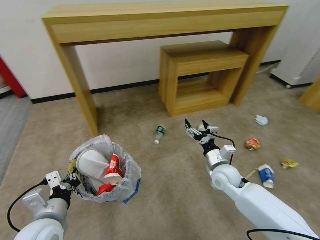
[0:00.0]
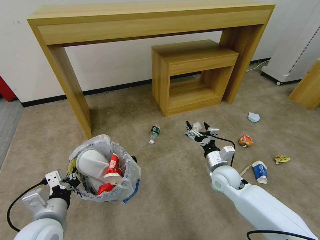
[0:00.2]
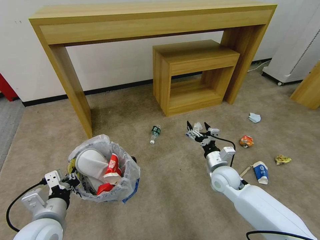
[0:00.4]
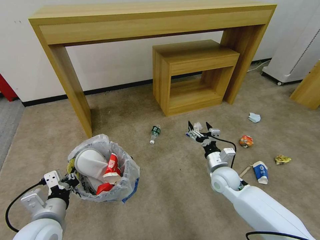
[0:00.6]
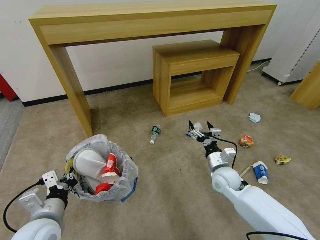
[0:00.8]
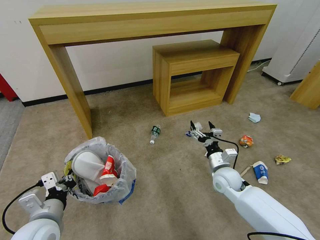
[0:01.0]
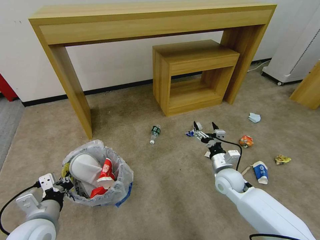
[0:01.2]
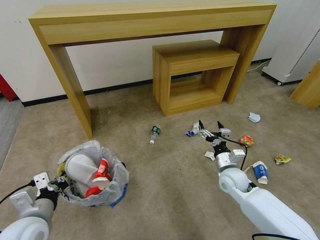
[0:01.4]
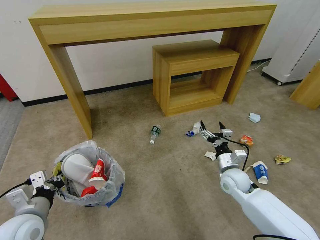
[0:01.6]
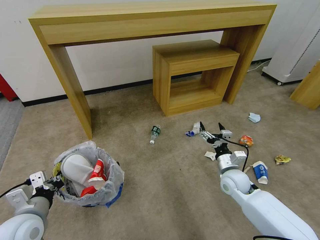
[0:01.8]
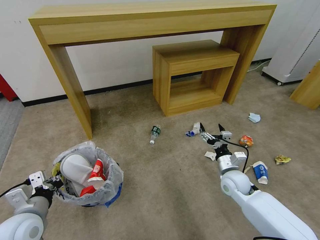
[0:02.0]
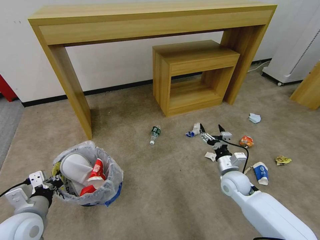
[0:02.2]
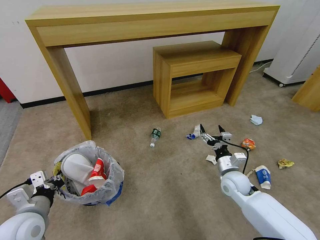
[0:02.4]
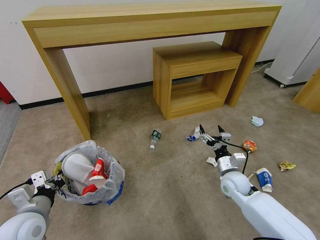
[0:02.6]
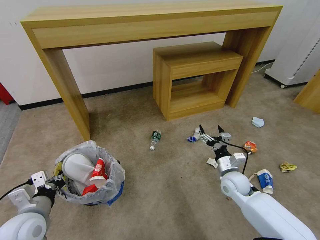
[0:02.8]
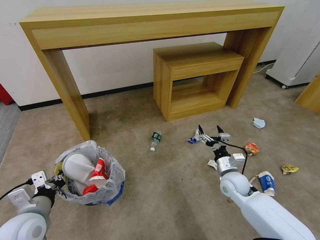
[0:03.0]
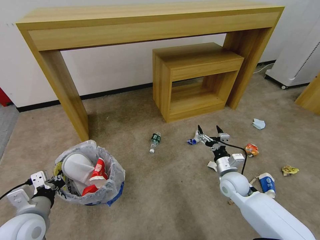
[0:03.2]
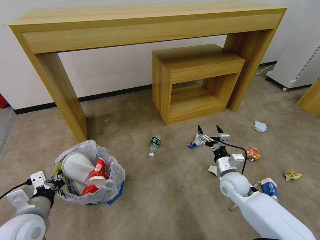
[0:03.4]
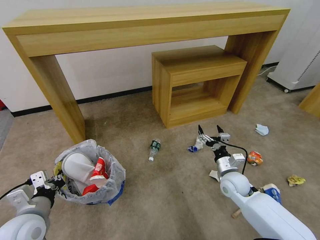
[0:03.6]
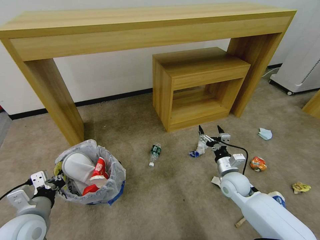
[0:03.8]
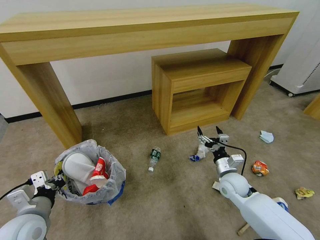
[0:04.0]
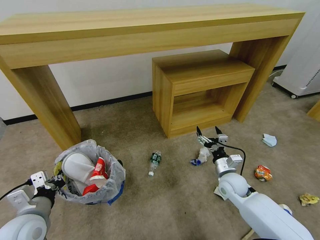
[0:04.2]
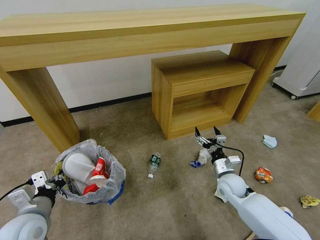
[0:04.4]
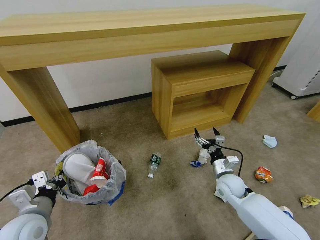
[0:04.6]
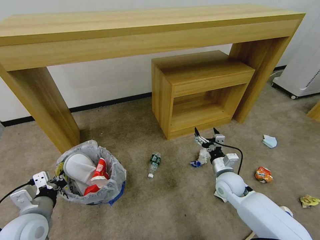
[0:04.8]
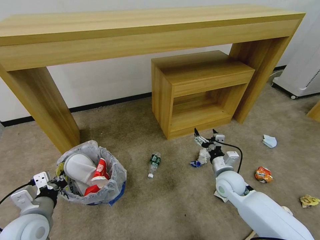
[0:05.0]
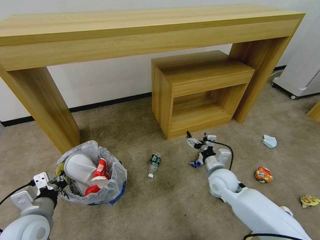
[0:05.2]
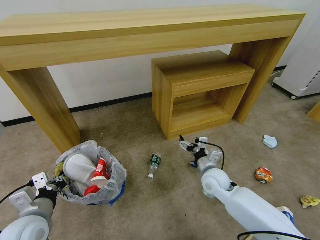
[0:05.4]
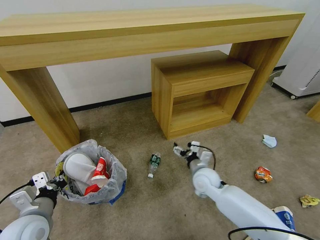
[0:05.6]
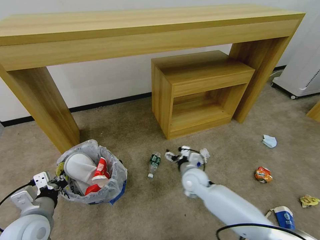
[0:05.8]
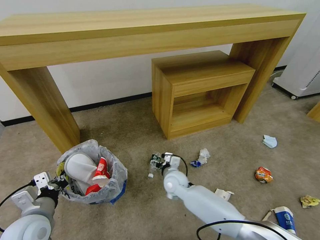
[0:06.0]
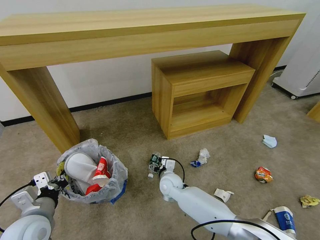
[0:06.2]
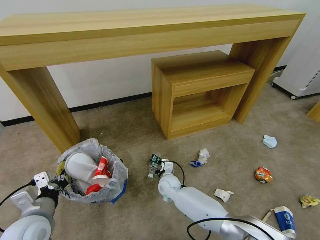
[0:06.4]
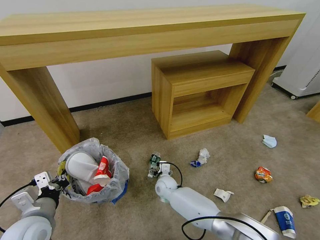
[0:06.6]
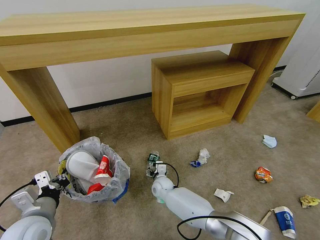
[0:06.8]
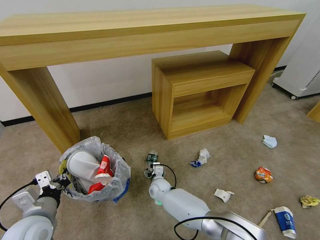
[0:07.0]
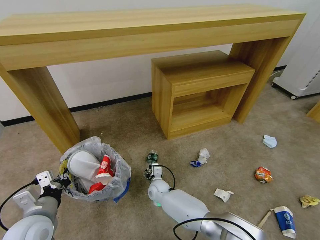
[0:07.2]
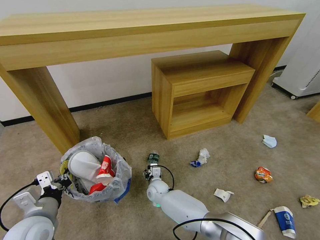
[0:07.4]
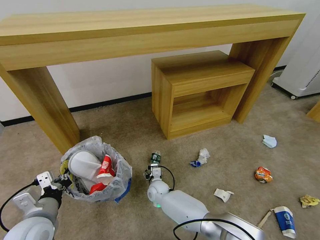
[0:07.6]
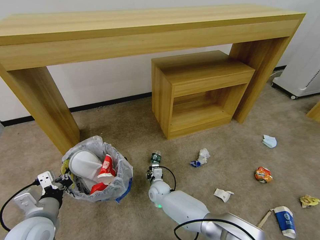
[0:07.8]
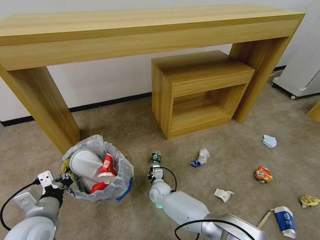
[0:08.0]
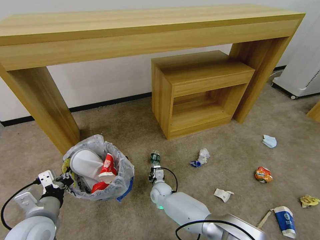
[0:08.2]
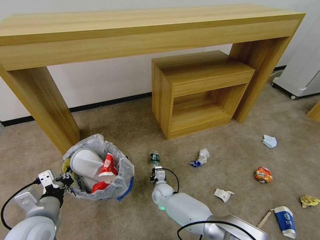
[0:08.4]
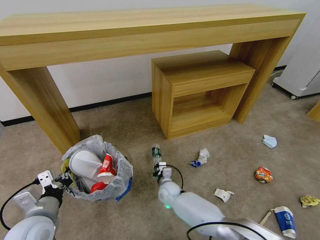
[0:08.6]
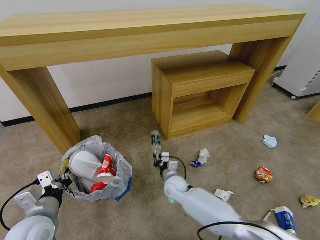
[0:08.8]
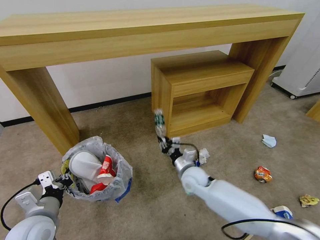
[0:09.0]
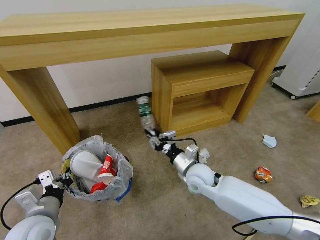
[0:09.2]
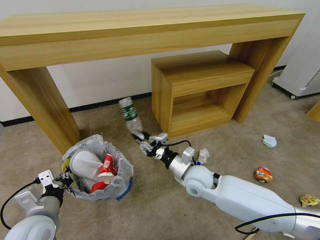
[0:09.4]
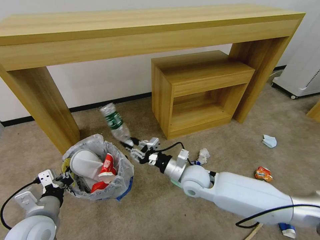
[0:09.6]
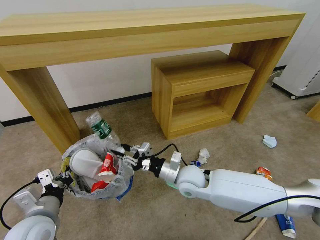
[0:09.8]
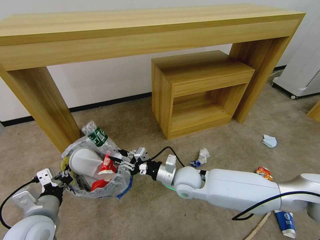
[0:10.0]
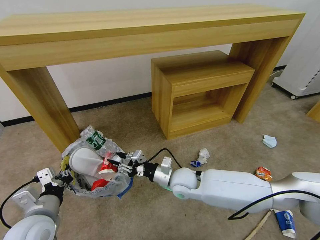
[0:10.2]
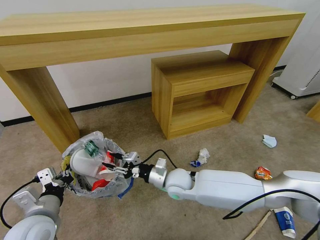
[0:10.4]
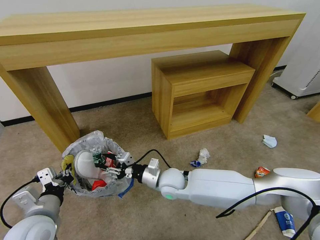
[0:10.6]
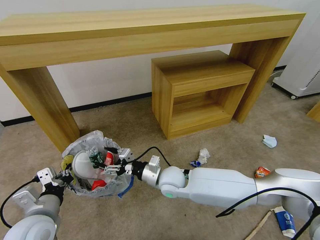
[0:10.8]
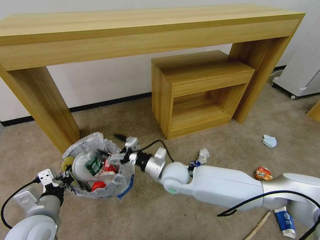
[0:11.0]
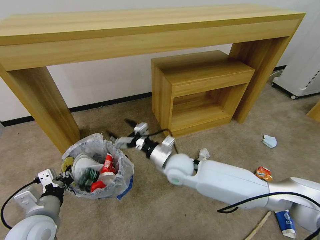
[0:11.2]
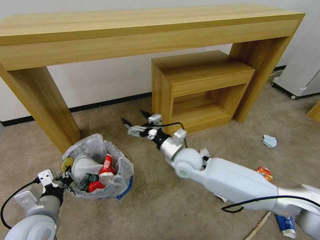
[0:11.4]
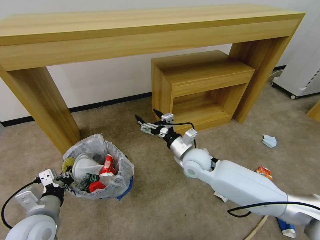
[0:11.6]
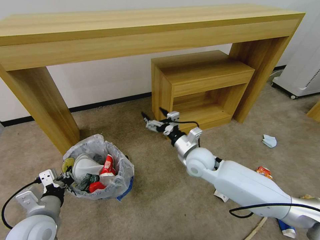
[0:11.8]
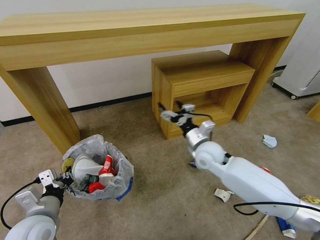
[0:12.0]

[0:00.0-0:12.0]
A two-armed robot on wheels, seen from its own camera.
Task of the whole recording: Pick up the trash bin and place the garbage on the floor into it.
0:00.0 to 0:01.6: The left gripper is displaced to the left by about 5 cm.
0:01.6 to 0:03.0: The grippers move only a little.
0:04.4 to 0:06.0: The right gripper goes about 20 cm to the left.
0:06.0 to 0:07.6: The right gripper heads downward and to the left, covering approximately 15 cm.
0:07.6 to 0:09.0: The right gripper is displaced to the right and upward by approximately 20 cm, and closes.
0:09.0 to 0:10.4: The right gripper goes some 10 cm to the left and upward.
0:10.4 to 0:12.0: The right gripper shifts roughly 15 cm to the right, upward and forward, and opens up.

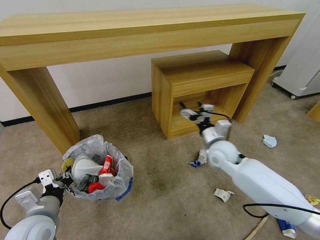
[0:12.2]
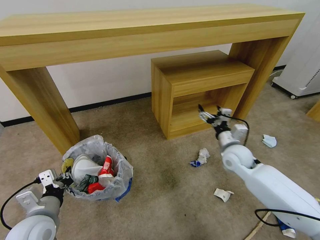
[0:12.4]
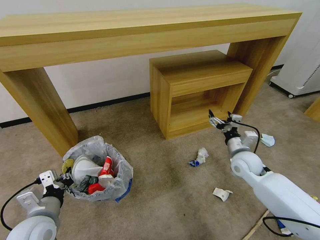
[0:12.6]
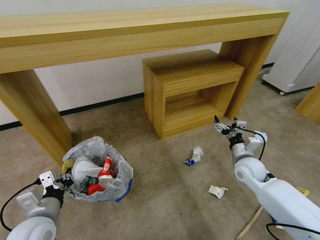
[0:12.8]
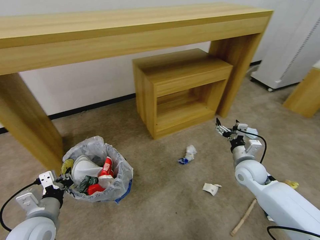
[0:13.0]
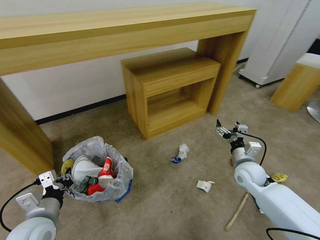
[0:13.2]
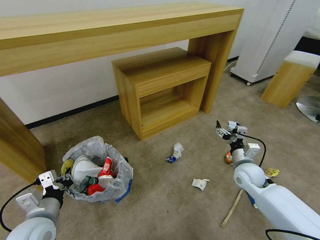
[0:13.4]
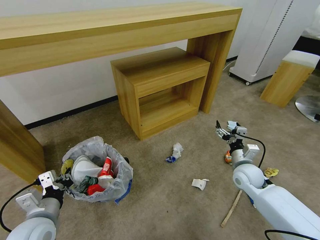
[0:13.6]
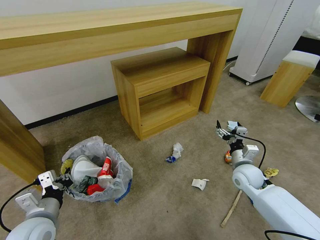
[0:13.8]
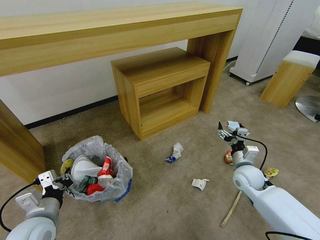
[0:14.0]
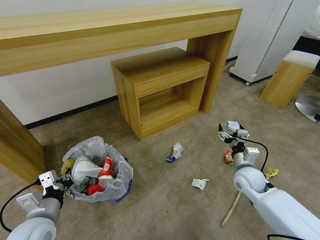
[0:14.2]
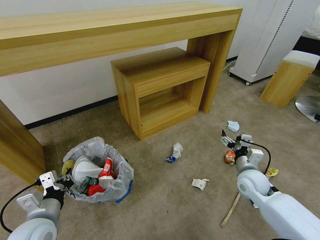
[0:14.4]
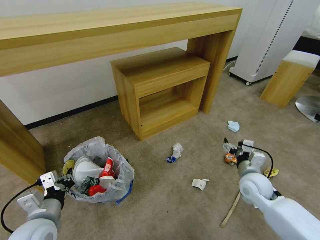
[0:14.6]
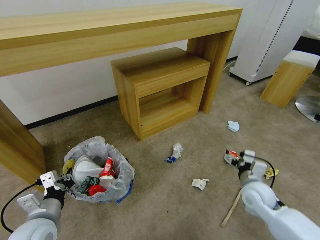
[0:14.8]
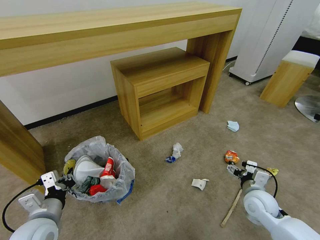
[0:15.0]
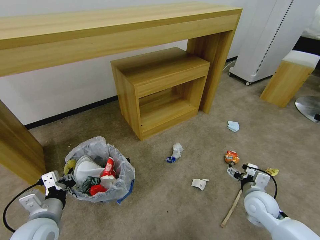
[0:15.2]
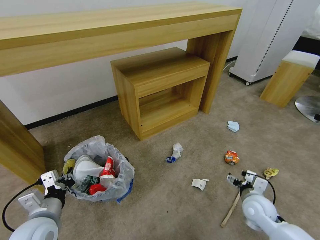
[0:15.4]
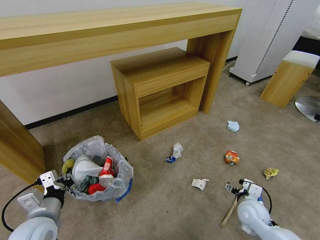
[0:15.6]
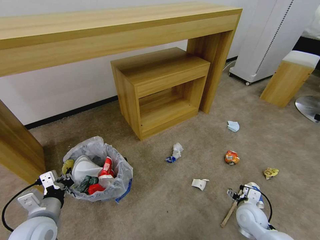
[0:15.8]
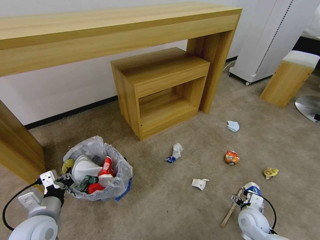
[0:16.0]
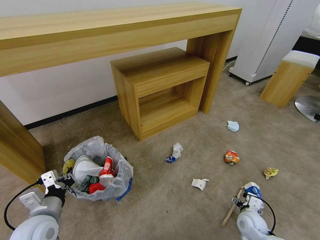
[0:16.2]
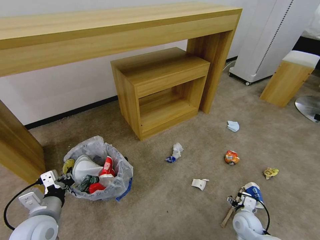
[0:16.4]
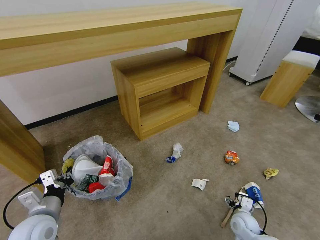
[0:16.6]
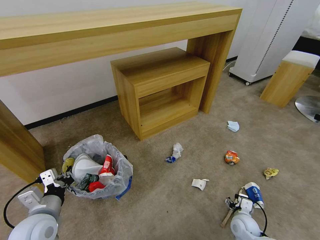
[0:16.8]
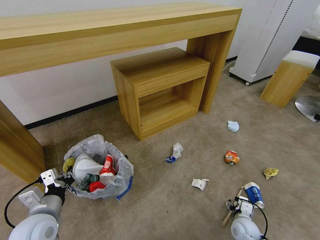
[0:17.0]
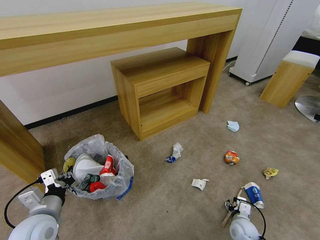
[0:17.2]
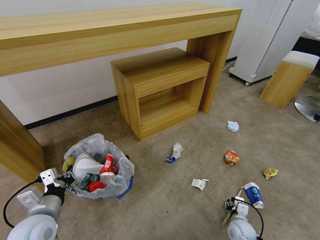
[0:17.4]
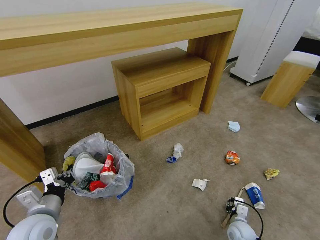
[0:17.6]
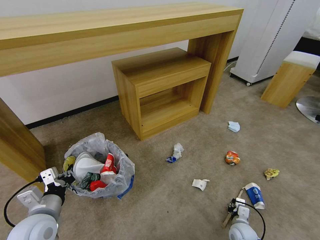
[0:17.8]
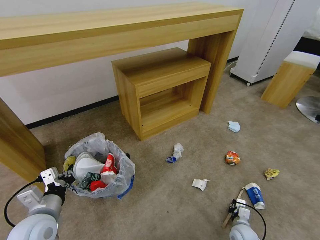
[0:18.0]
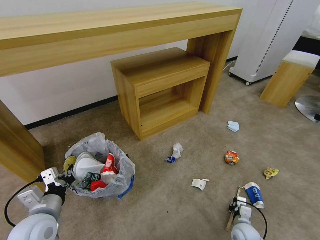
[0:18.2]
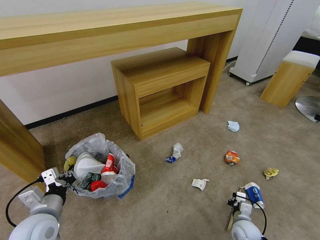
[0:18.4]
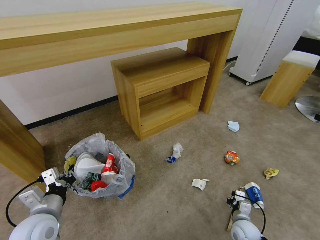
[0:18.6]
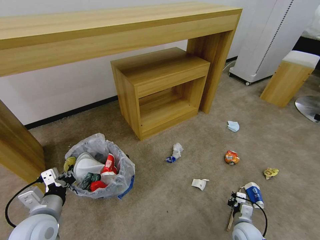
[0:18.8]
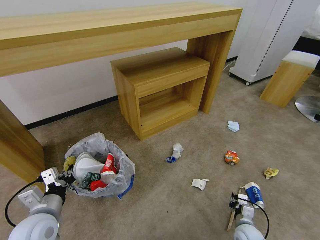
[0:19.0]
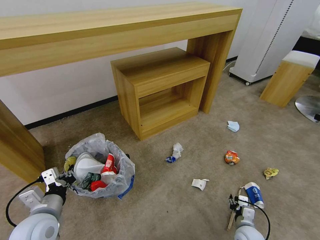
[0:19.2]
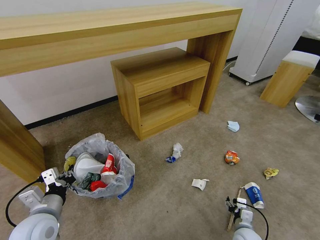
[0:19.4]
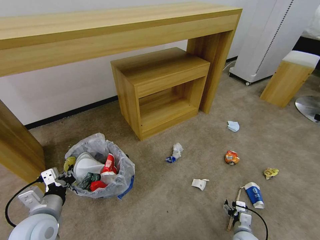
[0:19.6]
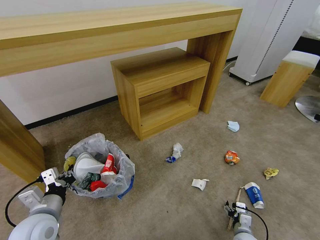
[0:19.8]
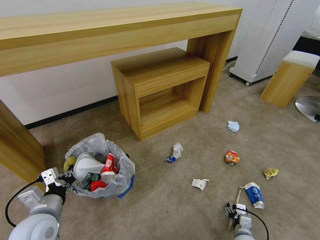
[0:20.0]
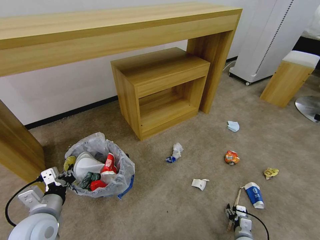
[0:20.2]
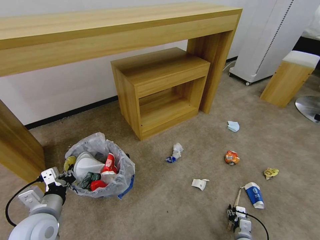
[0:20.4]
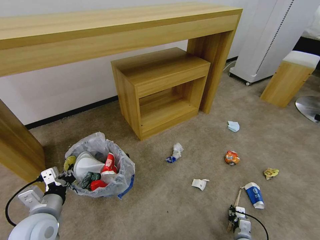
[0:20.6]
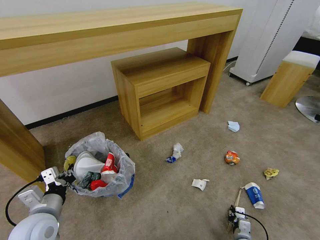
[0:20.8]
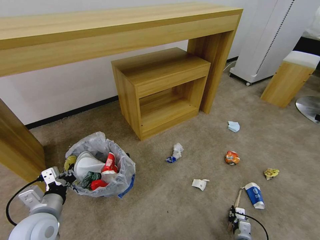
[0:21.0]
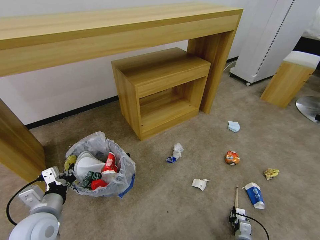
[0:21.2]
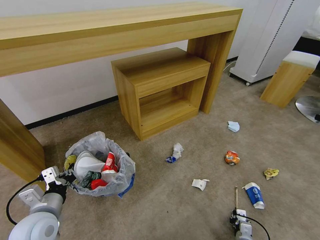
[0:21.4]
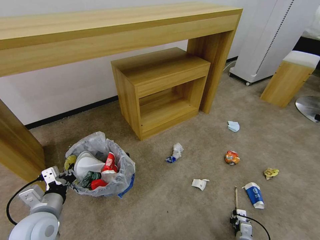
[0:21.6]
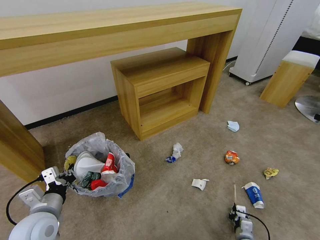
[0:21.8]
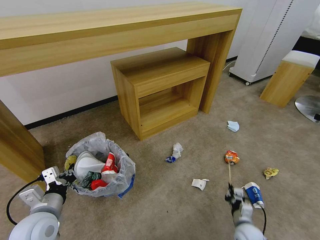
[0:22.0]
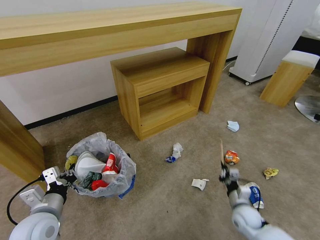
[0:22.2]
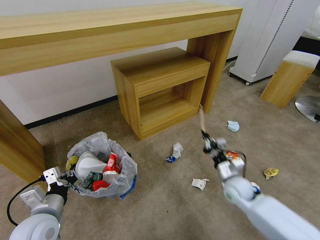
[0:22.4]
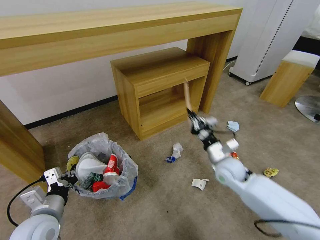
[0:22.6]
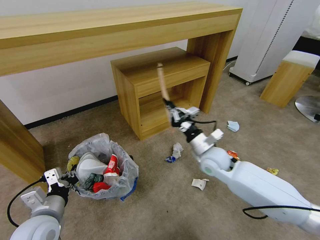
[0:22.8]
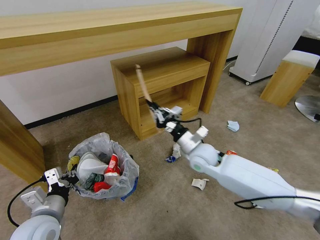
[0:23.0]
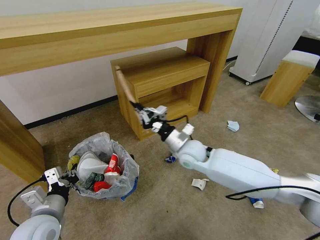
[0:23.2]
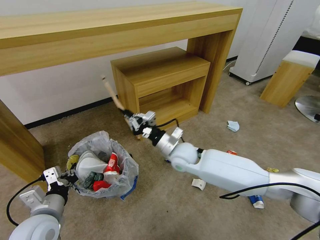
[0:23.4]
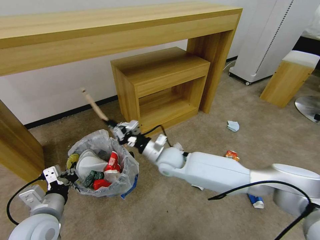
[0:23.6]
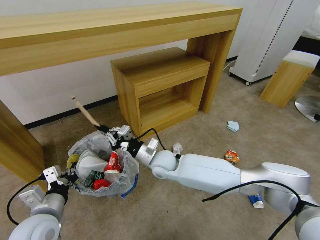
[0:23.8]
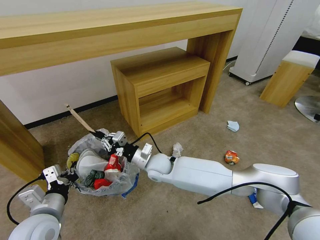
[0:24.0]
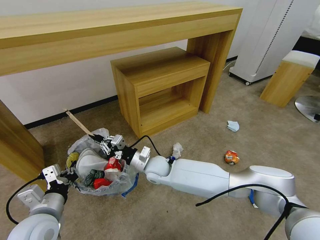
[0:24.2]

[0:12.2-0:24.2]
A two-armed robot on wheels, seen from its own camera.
Task of the whole recording: Pick up the trash bin and place the garbage on the floor into it.
0:12.2 to 0:13.8: The right gripper goes some 10 cm to the right and downward.
0:13.8 to 0:15.2: The right gripper shifts approximately 10 cm backward.
0:15.2 to 0:16.6: The right gripper shifts about 15 cm downward.
0:16.6 to 0:18.2: The right gripper closes up.
0:18.2 to 0:19.8: The right gripper opens its fingers.
0:19.8 to 0:21.2: The right gripper closes.
0:21.2 to 0:22.6: The right gripper heads upward and forward, covering some 35 cm.
0:22.6 to 0:24.2: The right gripper moves to the left, approximately 25 cm.
